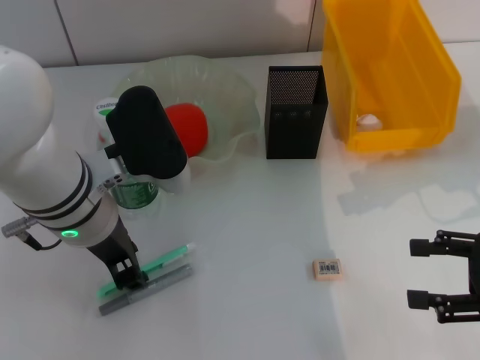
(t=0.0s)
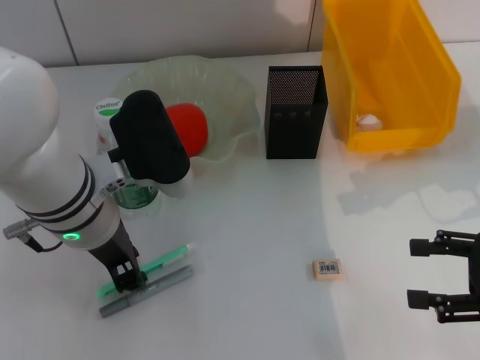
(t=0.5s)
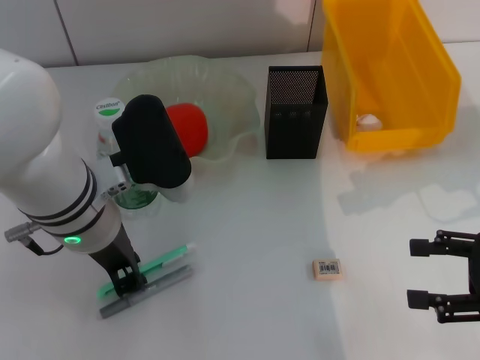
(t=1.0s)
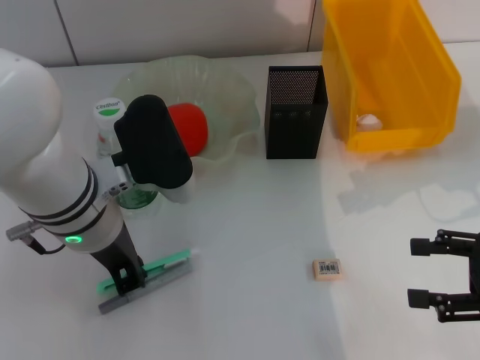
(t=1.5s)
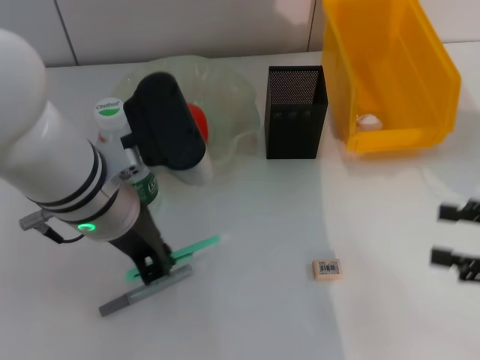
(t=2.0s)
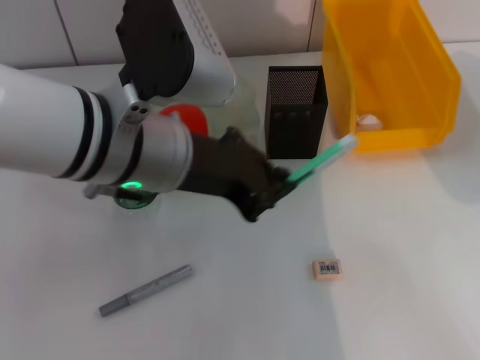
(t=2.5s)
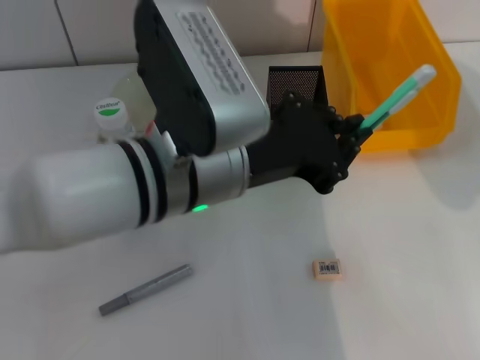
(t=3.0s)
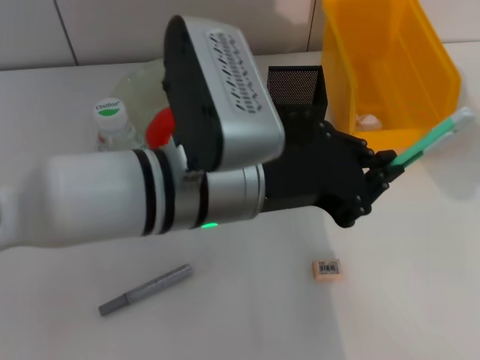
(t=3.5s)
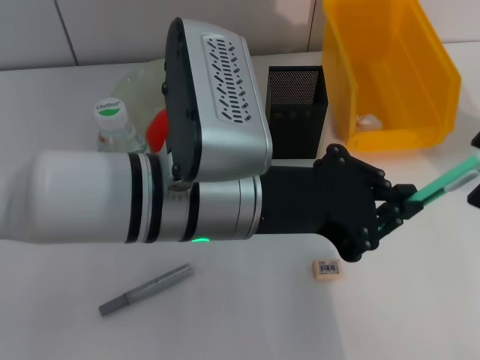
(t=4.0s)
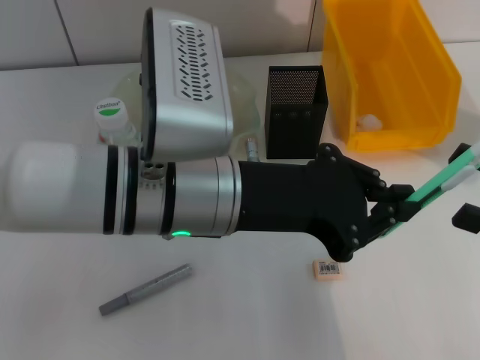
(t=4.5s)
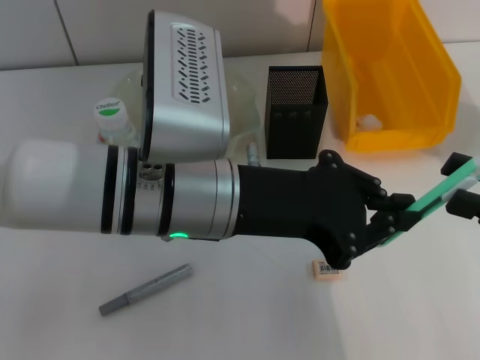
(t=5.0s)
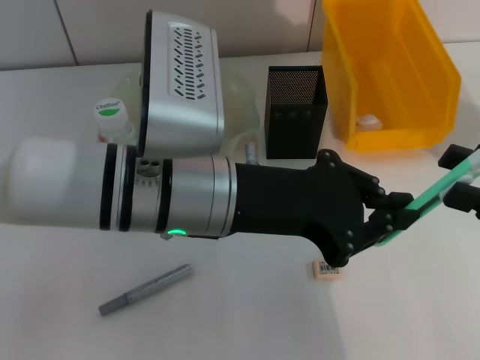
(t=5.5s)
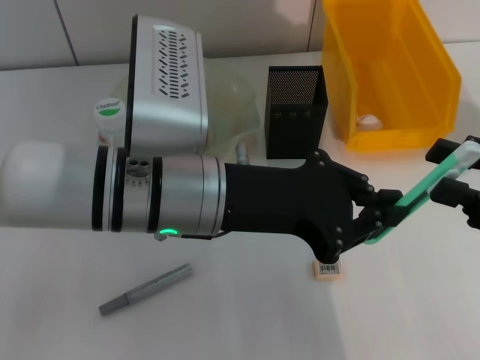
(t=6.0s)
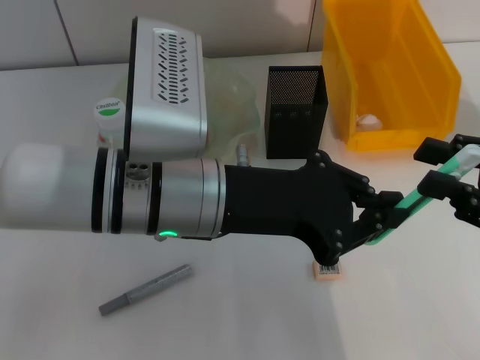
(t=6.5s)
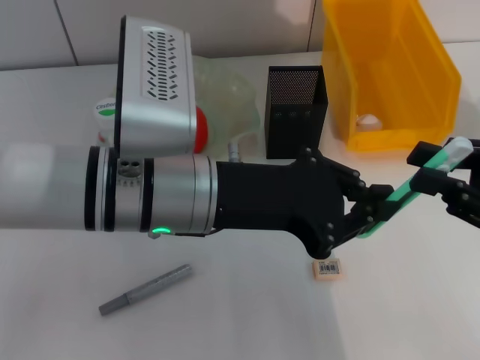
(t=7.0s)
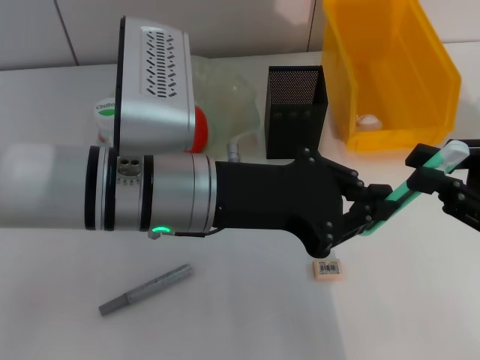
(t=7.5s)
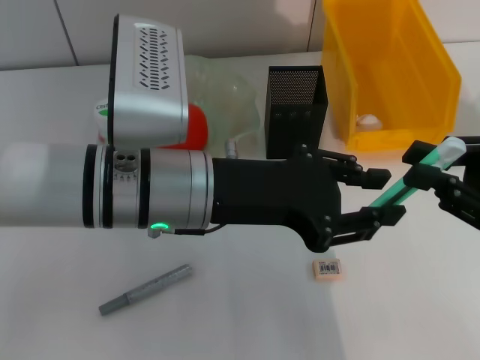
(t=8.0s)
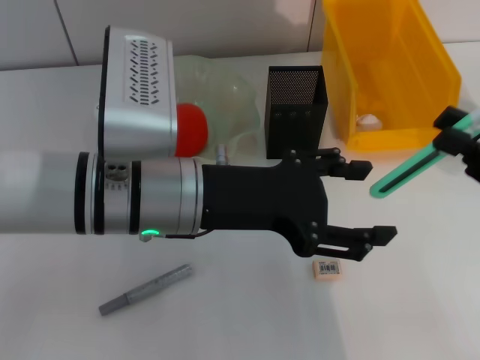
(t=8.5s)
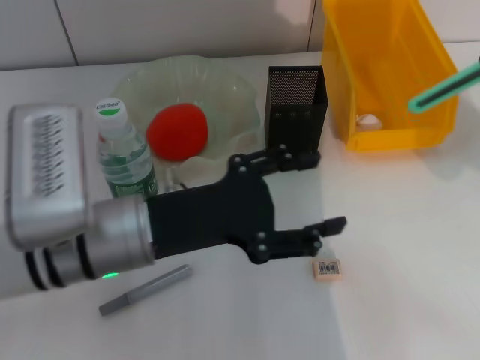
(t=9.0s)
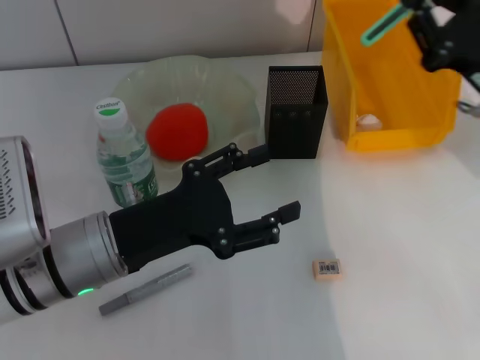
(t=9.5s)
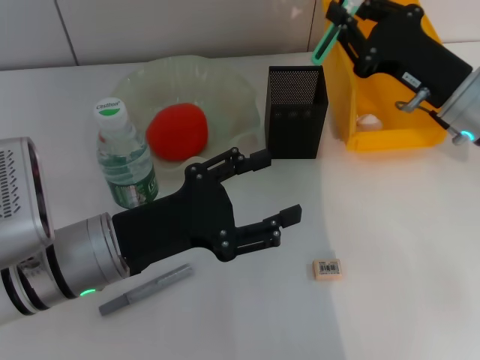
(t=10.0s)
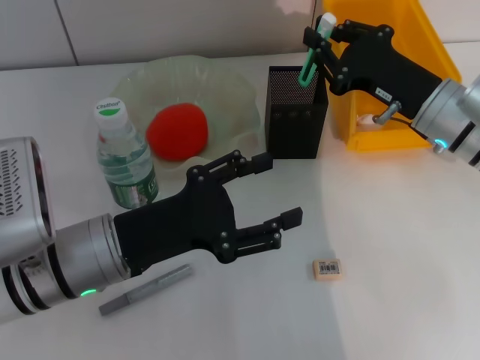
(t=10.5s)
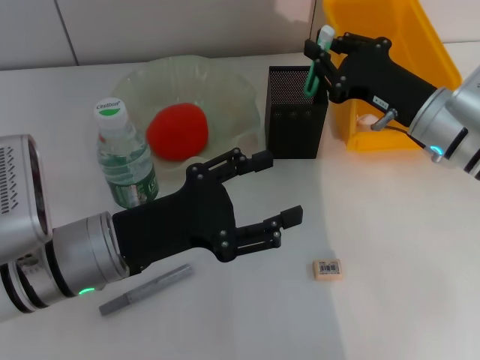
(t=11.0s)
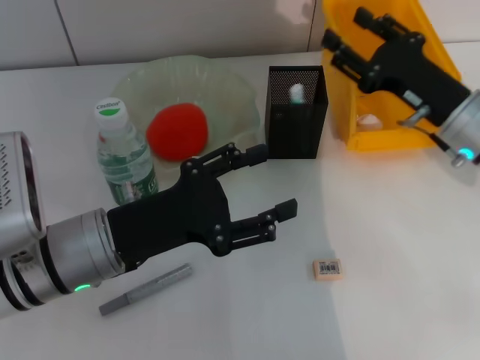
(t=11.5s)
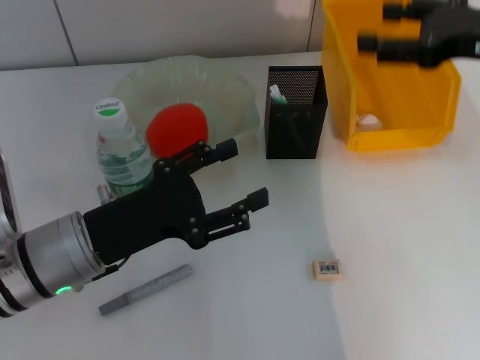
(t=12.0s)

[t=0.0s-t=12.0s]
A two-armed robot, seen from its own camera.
Step, t=2.0s to t=8.5s: Pass the blue utility knife from the left hand to the right hand.
Step, t=9.0s to t=11.5s: Place the blue utility knife into the pen holder with the right hand.
t=0.0s to t=2.0s: The left gripper closes up.
t=2.0s to t=4.0s: The left gripper moves to the right, about 5 cm.
t=4.0s to t=6.0s: The right gripper closes up.
t=6.0s to t=8.0s: The right gripper closes.
t=8.0s to t=10.0s: The right gripper travels forward and to the left by approximately 15 cm. The left gripper heads downward and to the left, covering some 10 cm, and opens up.
t=10.0s to t=12.0s: The right gripper goes some 10 cm upward and to the right, and opens its fingers.

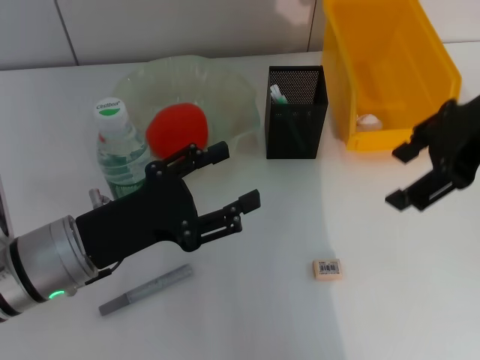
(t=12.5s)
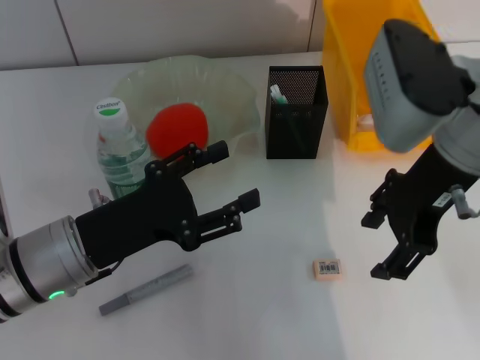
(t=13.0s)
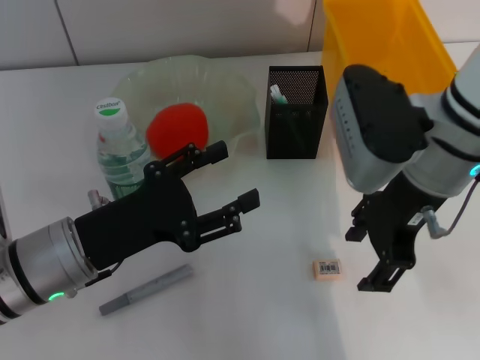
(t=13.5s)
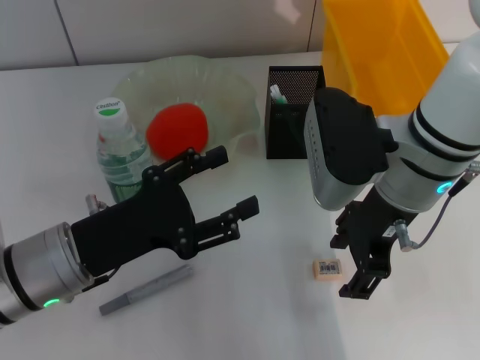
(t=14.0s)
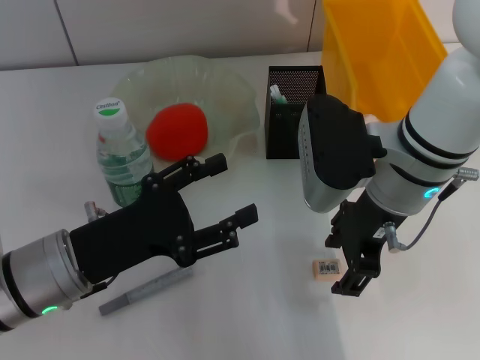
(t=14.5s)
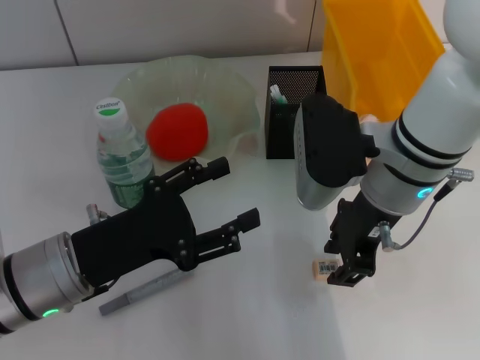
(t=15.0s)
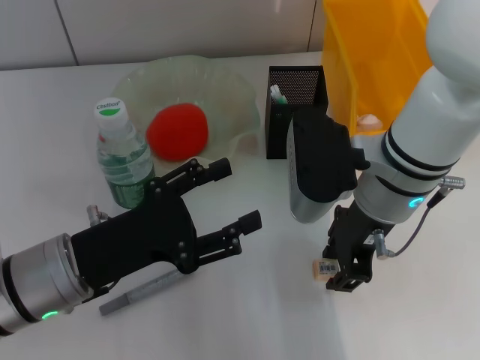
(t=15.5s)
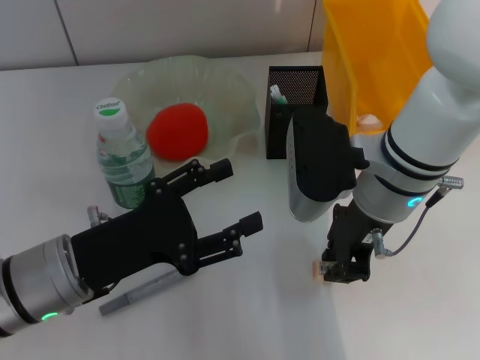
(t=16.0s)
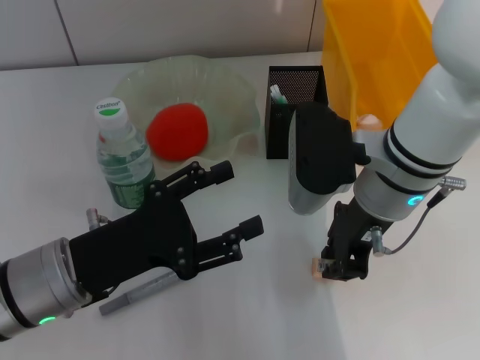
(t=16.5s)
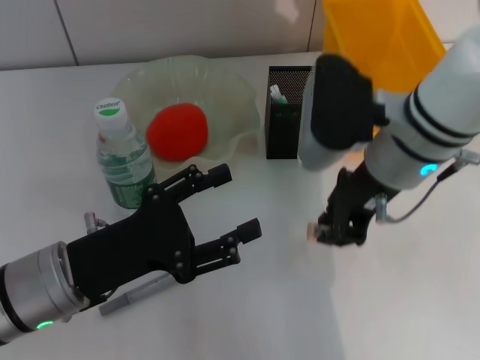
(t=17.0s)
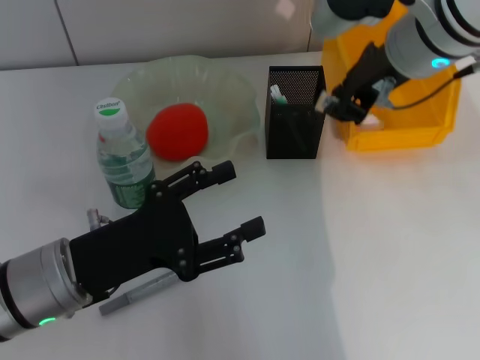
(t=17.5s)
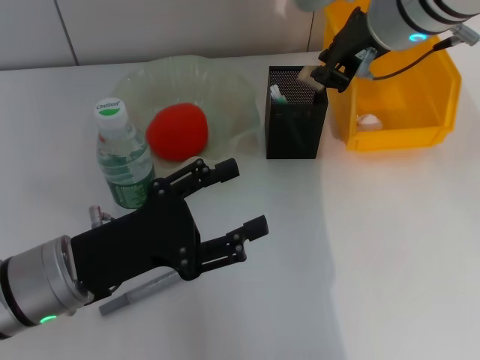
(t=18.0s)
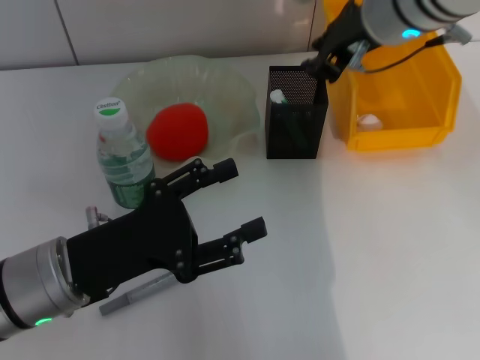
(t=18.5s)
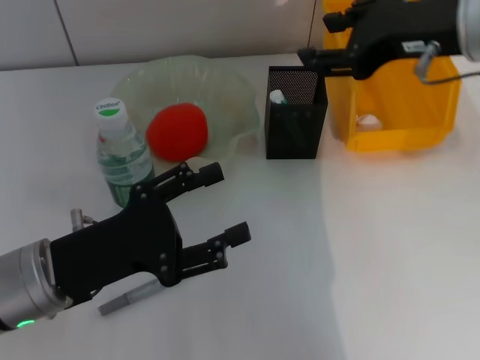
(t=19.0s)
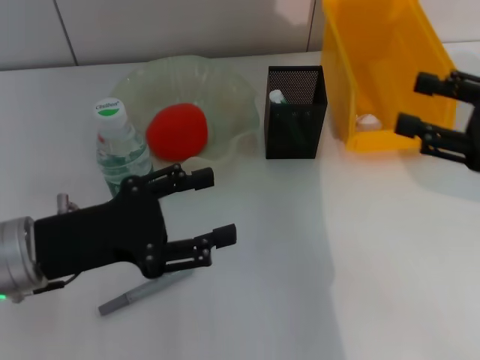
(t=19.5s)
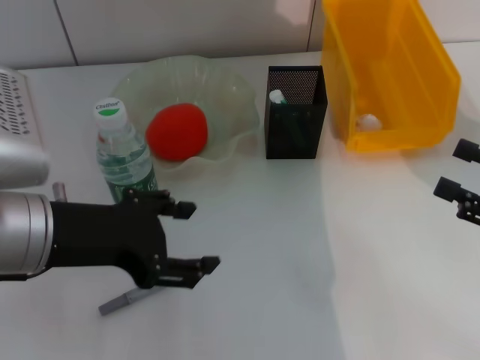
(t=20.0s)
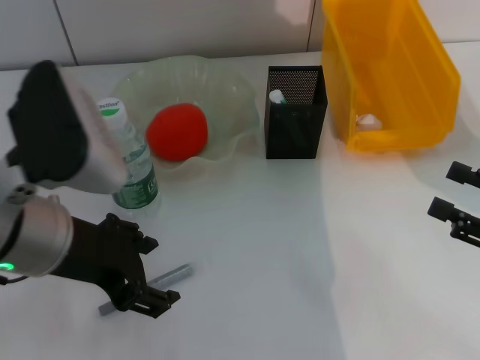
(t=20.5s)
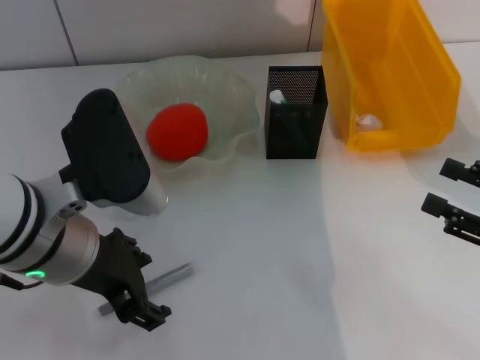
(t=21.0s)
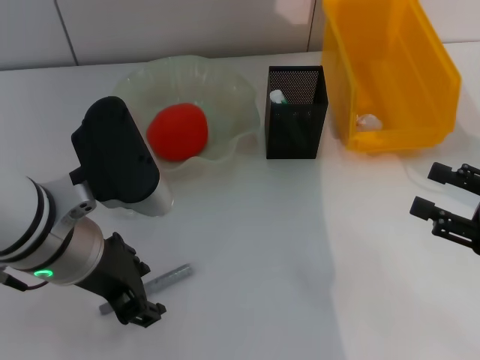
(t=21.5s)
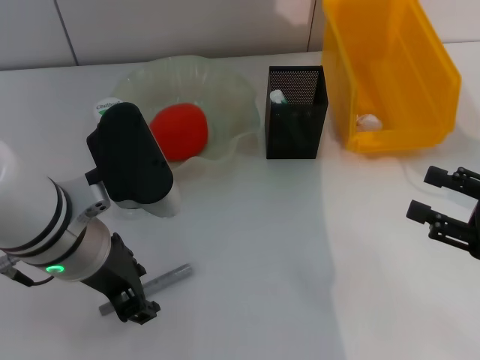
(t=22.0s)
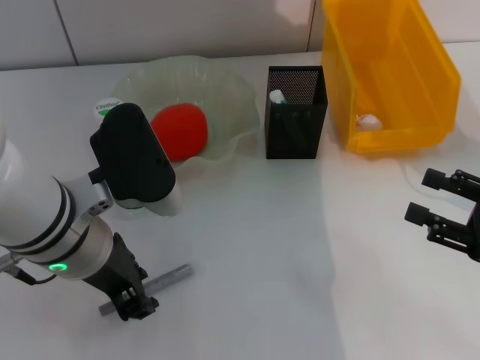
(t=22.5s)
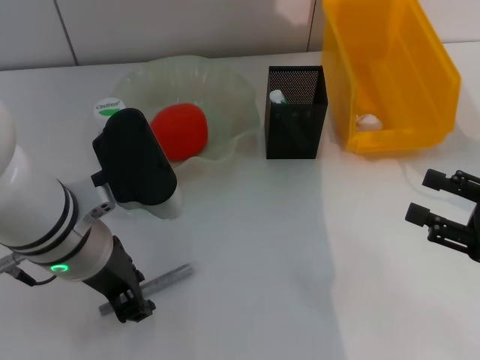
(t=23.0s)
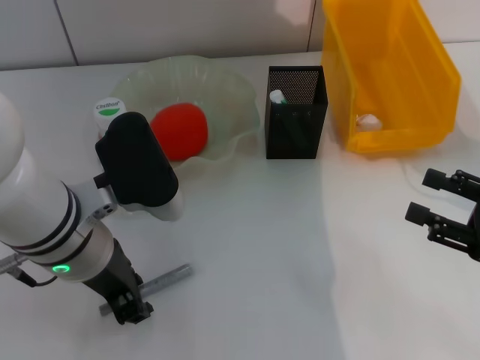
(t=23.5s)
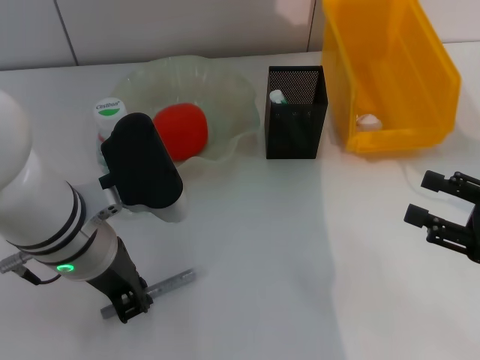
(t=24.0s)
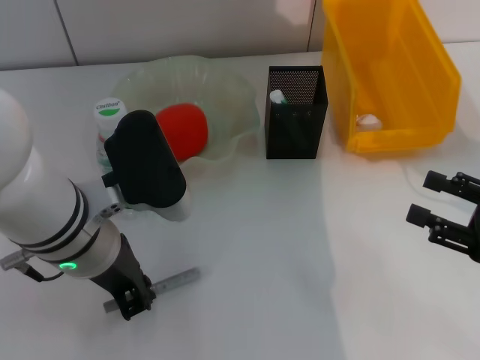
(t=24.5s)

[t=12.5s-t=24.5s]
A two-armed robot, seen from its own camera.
Step, t=12.5s to t=15.5s: Grab the eraser with the right hand.
Step, t=16.0s to t=18.5s: Put the eraser into the pen holder with the right hand.
t=12.5s to t=14.5s: The right gripper moves downward and to the left, roughly 15 cm.
t=14.5s to t=16.5s: The right gripper closes up.
t=16.5s to t=18.5s: The right gripper moves upward and forward, roughly 10 cm.
t=18.5s to t=20.5s: The left gripper is displaced upward by approximately 10 cm; the right gripper shifts about 35 cm to the right, backward and downward, and opens up.
t=20.5s to t=22.5s: The left gripper changes place by some 5 cm, and closes up.
t=22.5s to t=24.5s: The left gripper closes up.

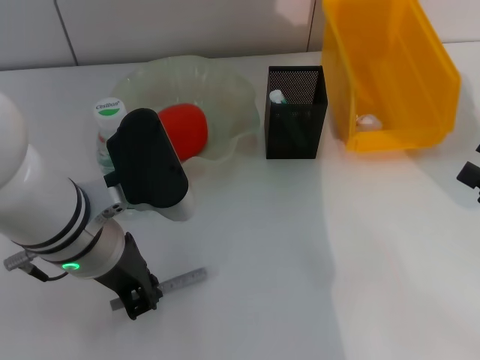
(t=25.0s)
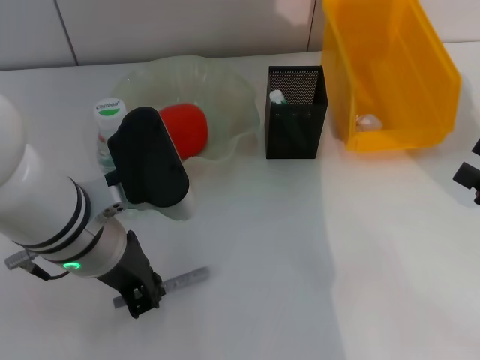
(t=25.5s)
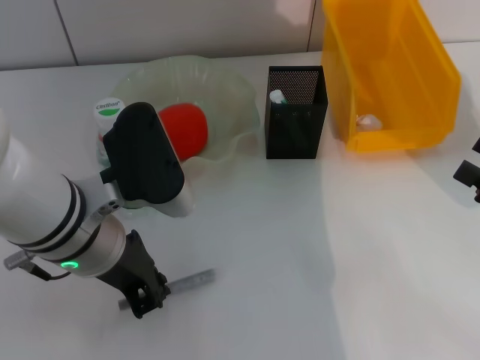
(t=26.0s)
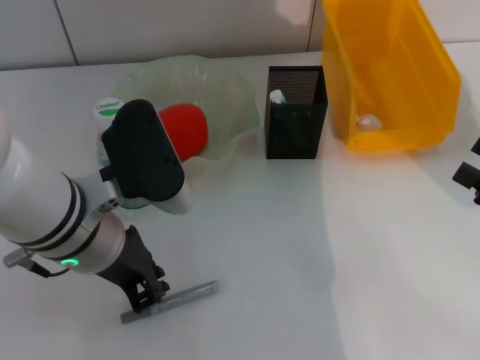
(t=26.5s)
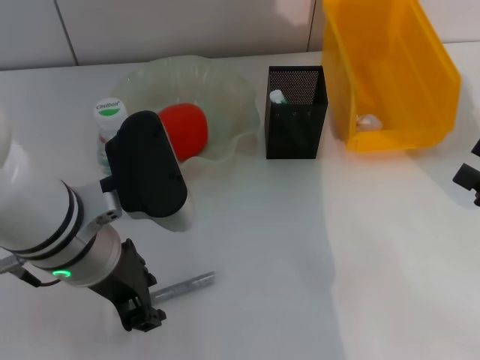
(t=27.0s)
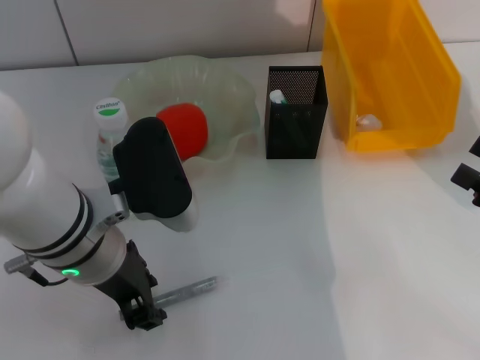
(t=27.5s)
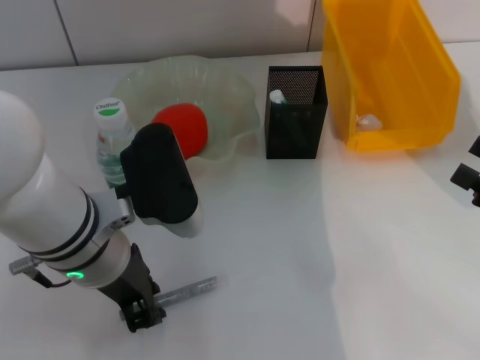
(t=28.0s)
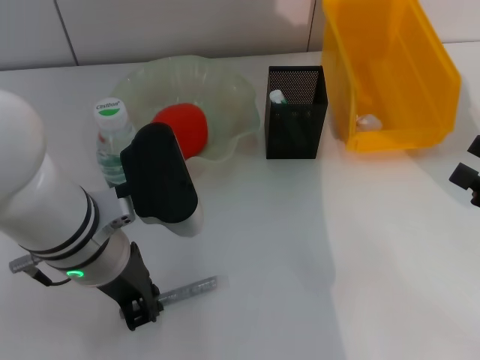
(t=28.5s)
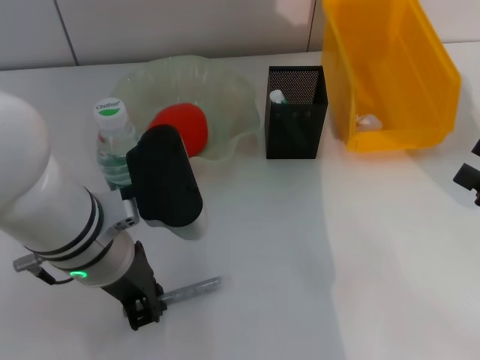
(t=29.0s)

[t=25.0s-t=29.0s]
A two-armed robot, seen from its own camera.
Step, t=25.0s to t=28.5s: Grab the gray glue with the left hand.
t=25.0s to t=27.0s: The left gripper opens its fingers.
t=27.0s to t=29.0s: There are only small adjustments of the grippers.
